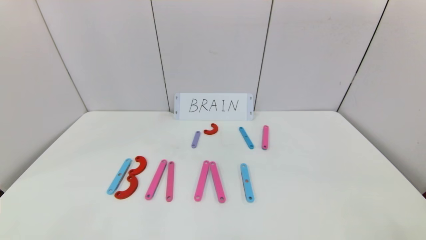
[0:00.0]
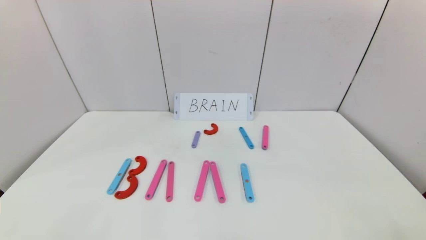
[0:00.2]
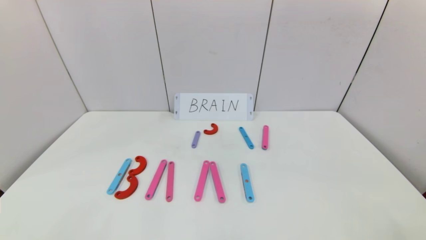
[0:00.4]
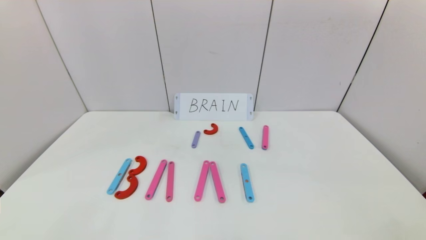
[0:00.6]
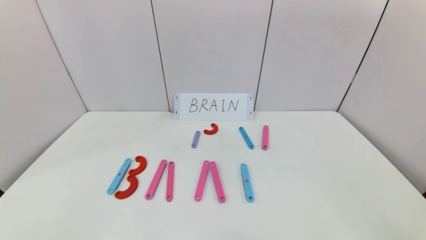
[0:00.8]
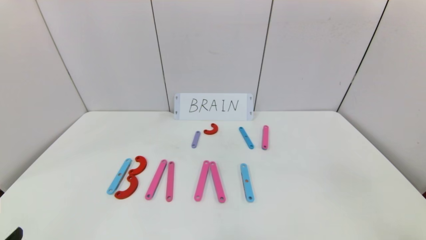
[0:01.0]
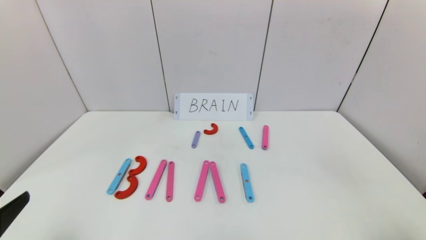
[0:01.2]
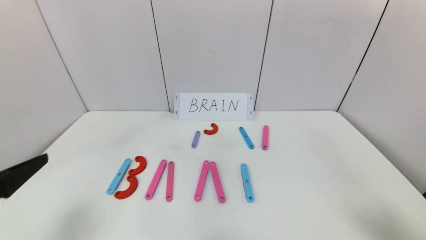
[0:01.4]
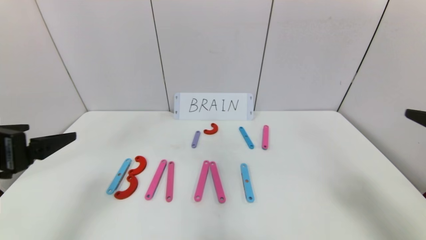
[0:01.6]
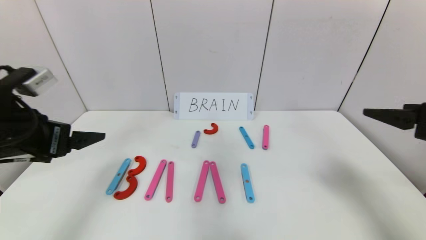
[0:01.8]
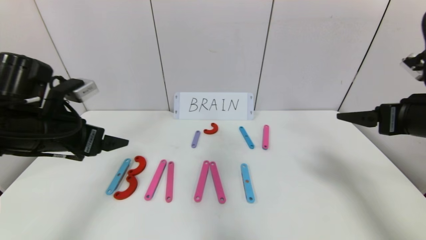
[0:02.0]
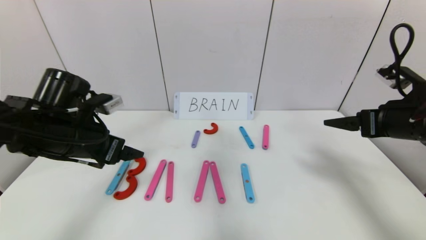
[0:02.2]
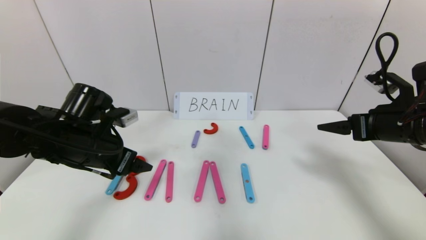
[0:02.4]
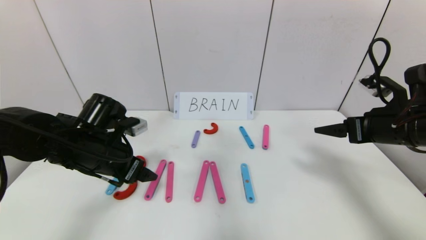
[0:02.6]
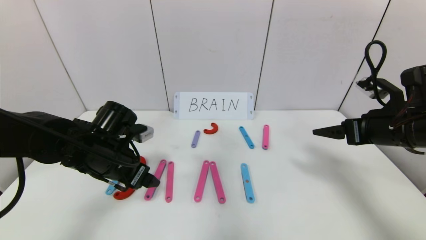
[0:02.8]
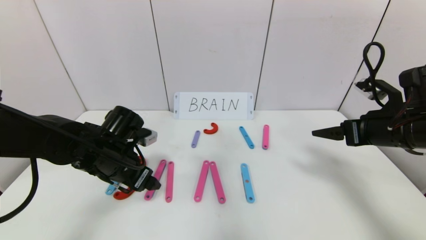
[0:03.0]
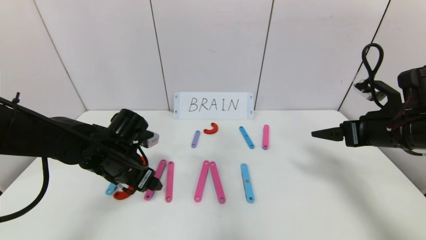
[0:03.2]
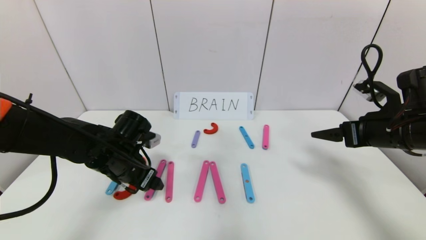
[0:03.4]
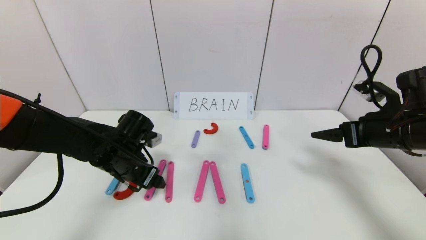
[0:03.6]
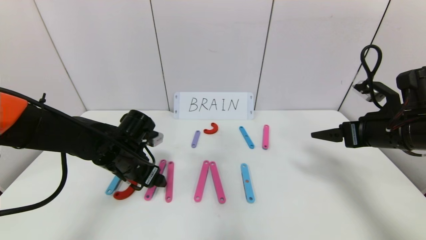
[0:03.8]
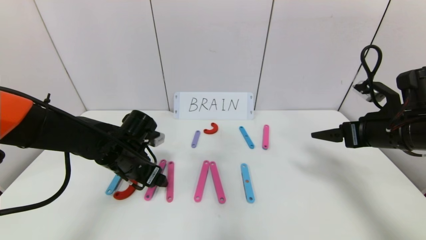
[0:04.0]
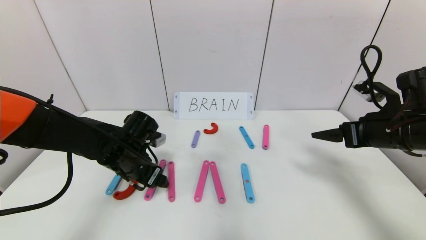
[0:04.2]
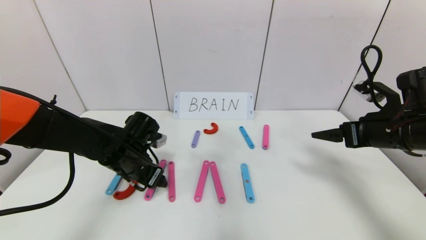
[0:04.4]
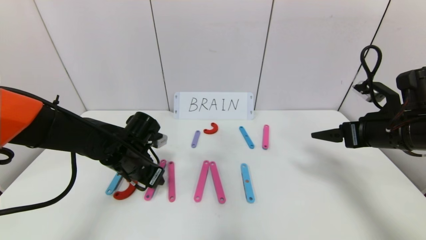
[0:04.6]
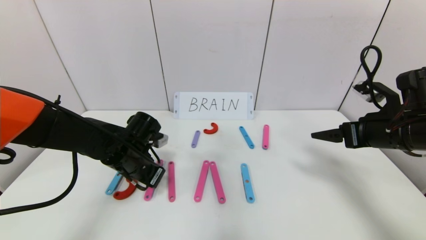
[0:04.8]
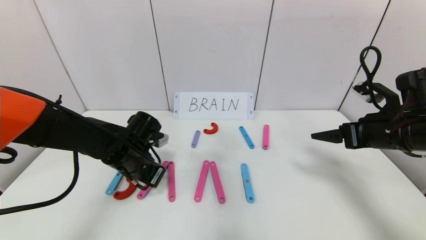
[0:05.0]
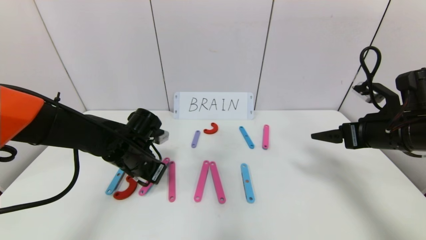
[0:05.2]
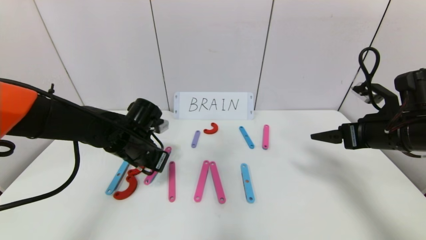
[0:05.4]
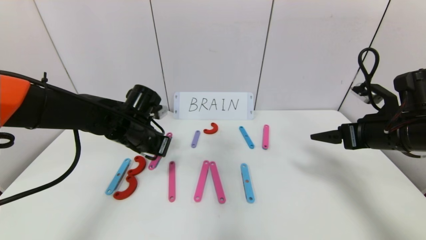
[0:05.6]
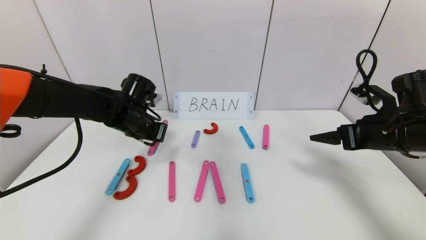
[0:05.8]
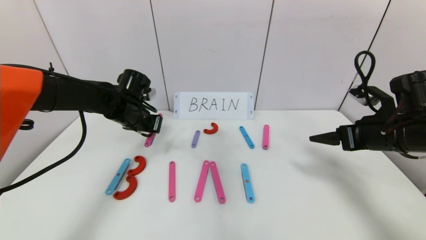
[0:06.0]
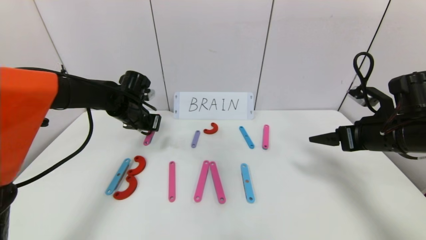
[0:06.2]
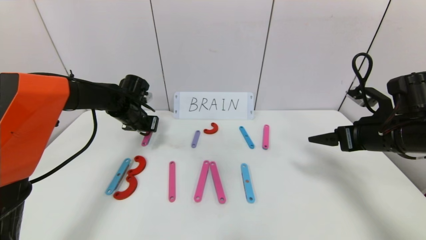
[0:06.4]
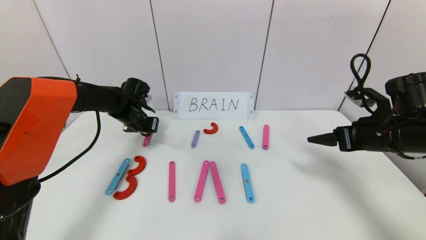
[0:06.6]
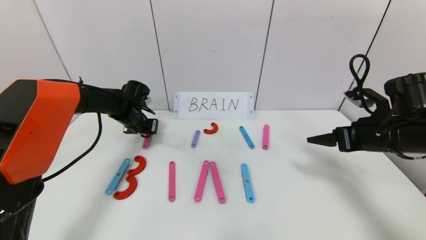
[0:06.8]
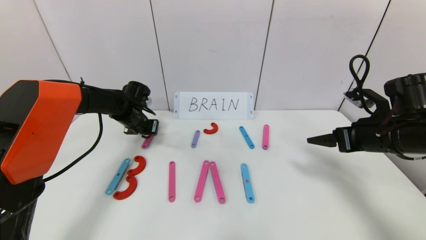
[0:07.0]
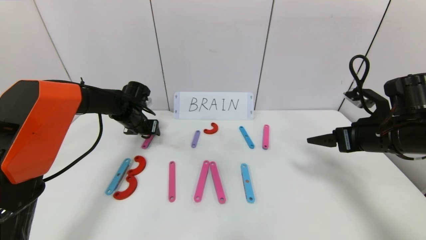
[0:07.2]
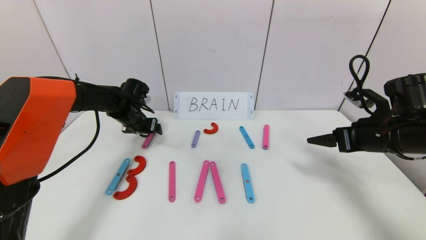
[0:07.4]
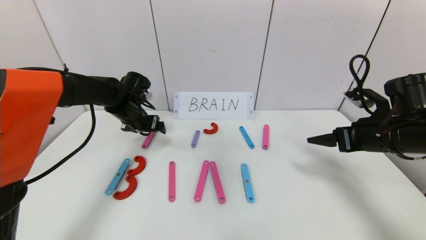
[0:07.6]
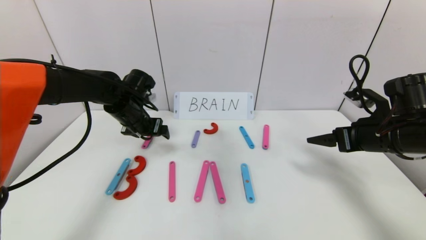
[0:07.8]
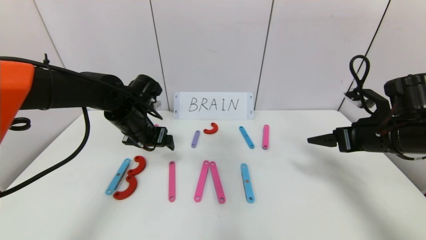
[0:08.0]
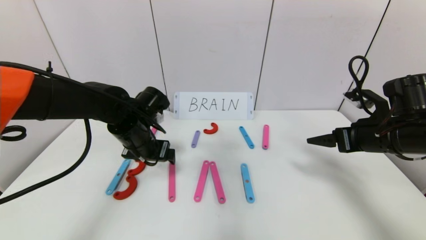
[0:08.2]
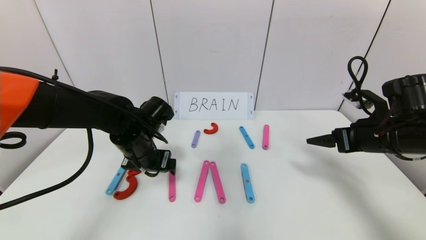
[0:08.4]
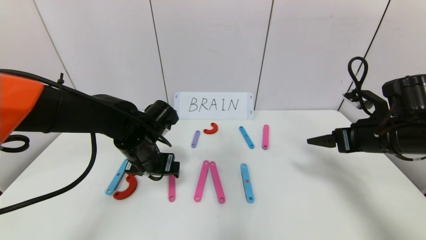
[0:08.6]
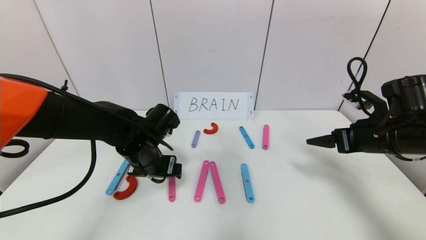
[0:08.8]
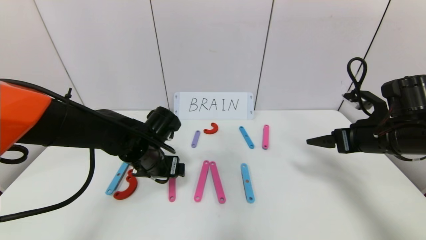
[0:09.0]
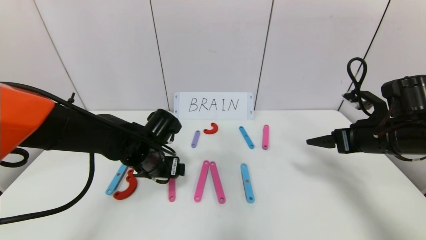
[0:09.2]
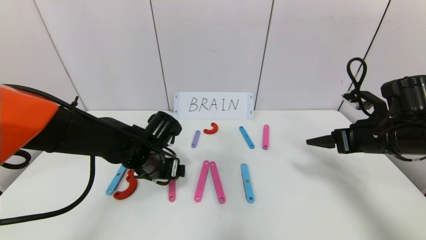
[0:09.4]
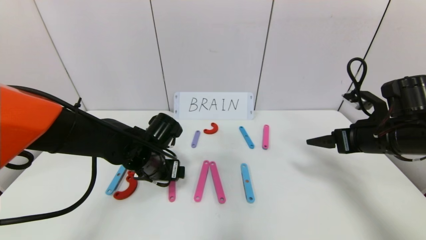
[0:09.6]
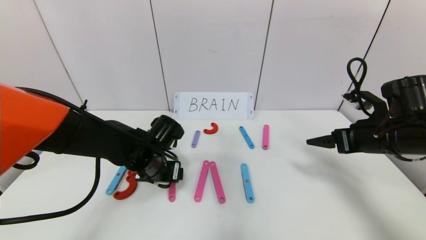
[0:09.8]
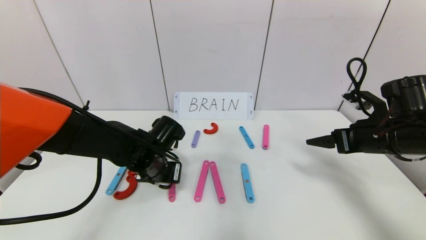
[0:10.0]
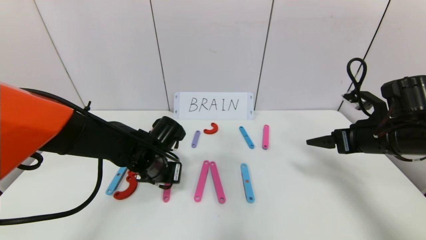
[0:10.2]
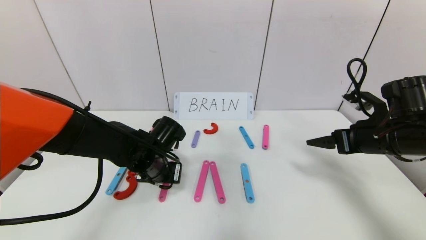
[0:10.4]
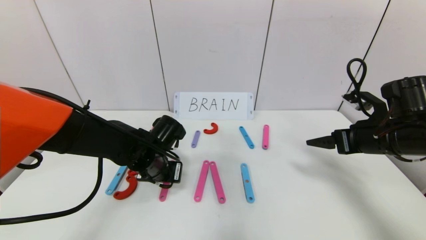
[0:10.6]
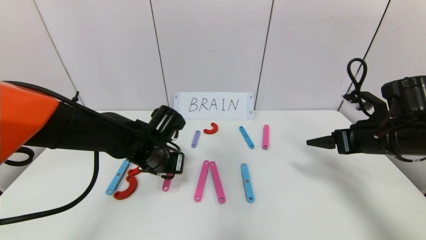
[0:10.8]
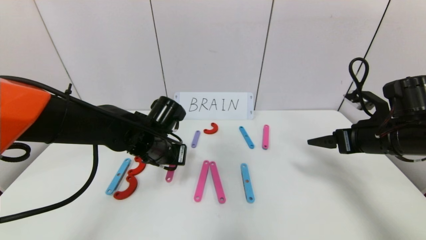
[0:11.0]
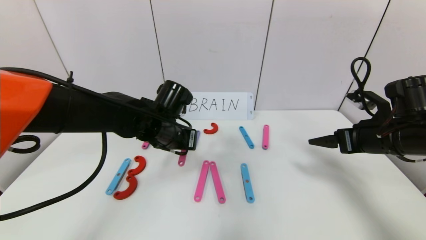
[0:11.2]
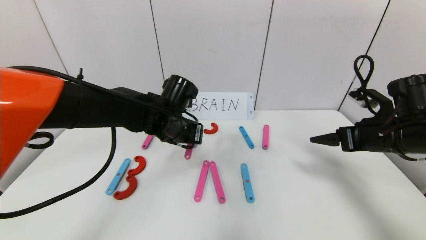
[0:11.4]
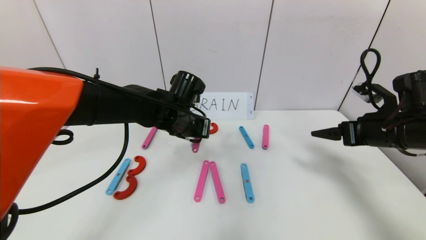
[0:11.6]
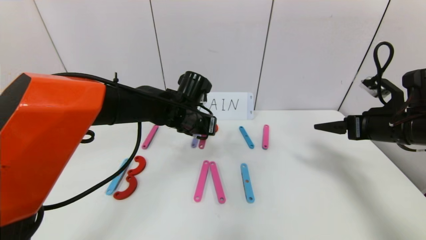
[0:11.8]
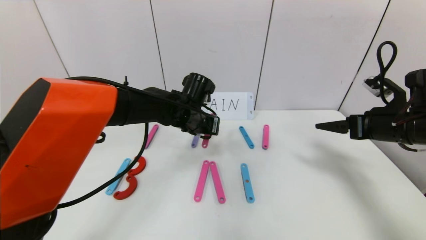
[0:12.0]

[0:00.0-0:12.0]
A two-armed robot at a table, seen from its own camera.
Task of the whole recording: rearrange the word baai as brain.
0:00.0 to 0:01.6: The grippers both shift upward and forward by approximately 25 cm.
0:01.6 to 0:03.0: The left gripper travels forward, downward and to the right by about 20 cm, while the right gripper shifts about 15 cm forward and downward.
0:03.0 to 0:04.4: There are only small adjustments of the grippers.
0:04.4 to 0:06.0: The left gripper heads forward and upward, covering about 10 cm, and closes up.
0:06.0 to 0:07.6: The left gripper opens its fingers.
0:07.6 to 0:09.0: The left gripper goes roughly 15 cm backward and to the right.
0:09.0 to 0:10.4: The left gripper closes up.
0:10.4 to 0:12.0: The left gripper travels forward, to the right and upward by roughly 15 cm.

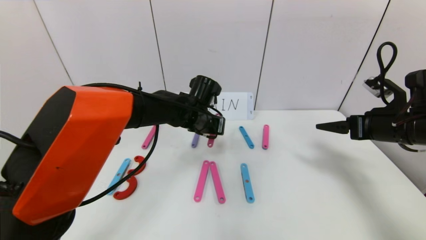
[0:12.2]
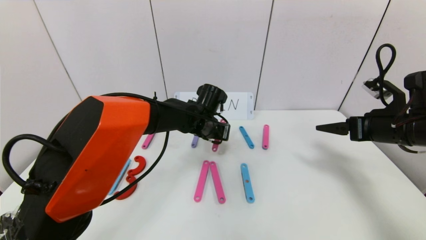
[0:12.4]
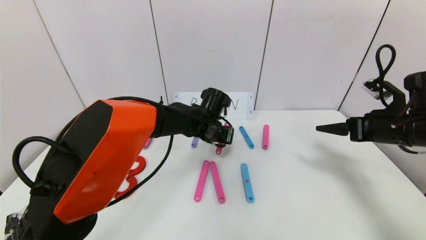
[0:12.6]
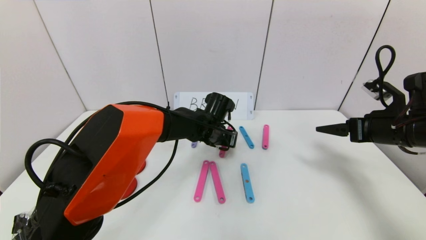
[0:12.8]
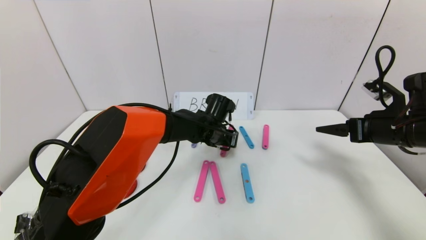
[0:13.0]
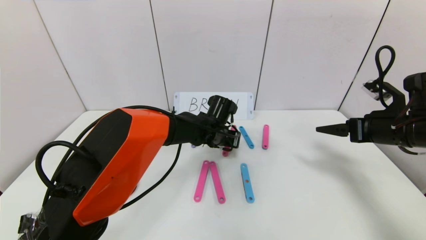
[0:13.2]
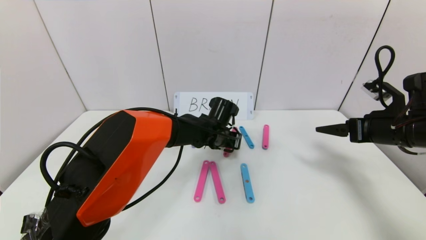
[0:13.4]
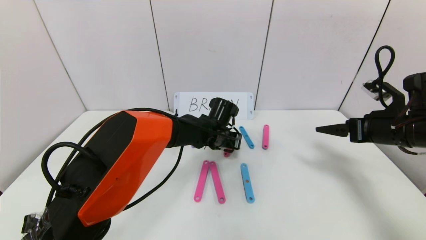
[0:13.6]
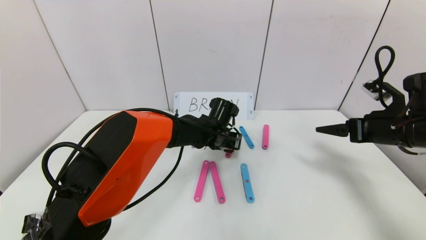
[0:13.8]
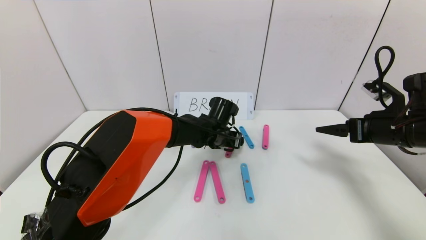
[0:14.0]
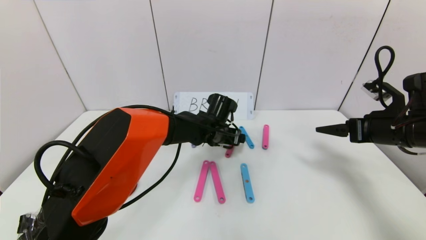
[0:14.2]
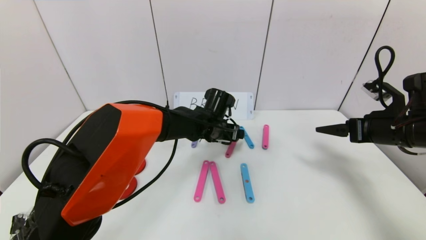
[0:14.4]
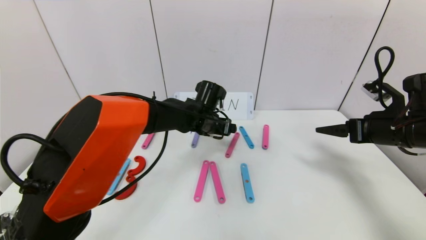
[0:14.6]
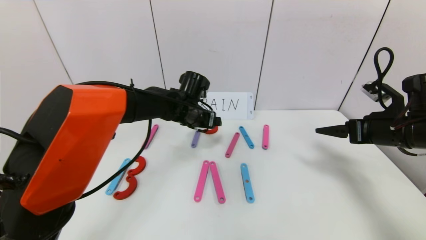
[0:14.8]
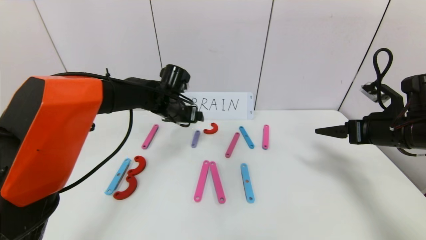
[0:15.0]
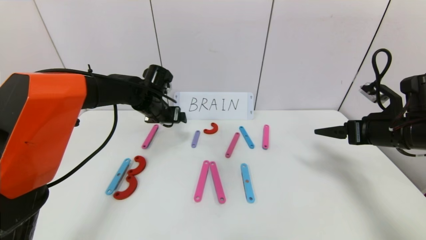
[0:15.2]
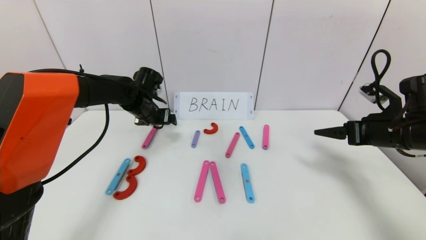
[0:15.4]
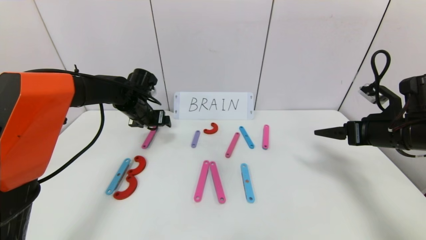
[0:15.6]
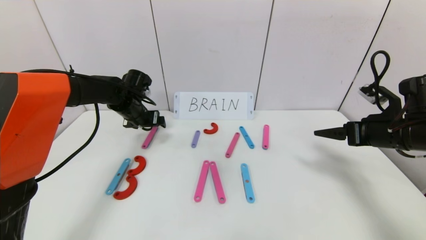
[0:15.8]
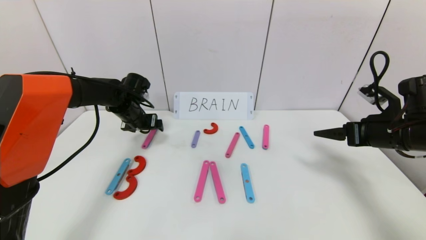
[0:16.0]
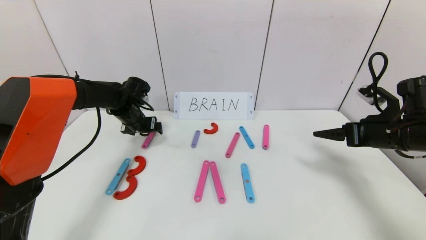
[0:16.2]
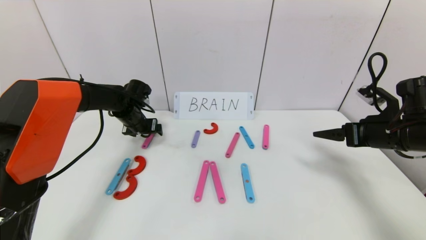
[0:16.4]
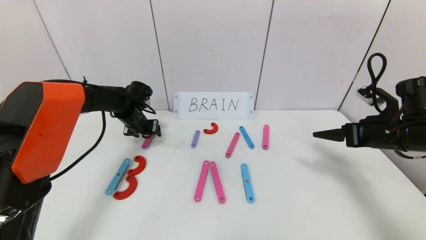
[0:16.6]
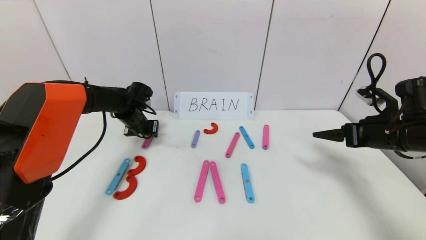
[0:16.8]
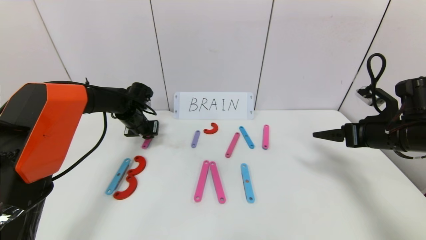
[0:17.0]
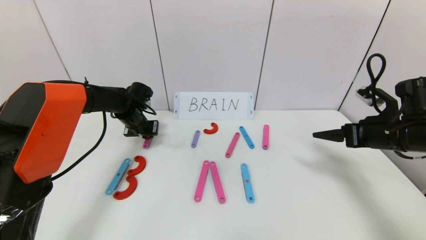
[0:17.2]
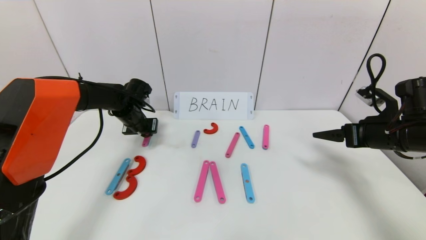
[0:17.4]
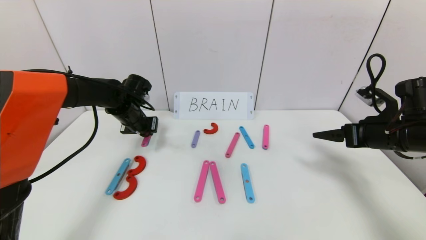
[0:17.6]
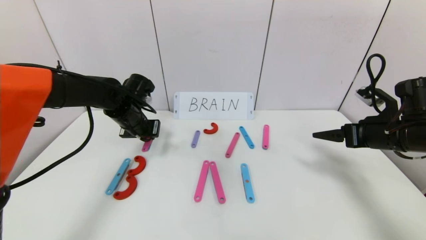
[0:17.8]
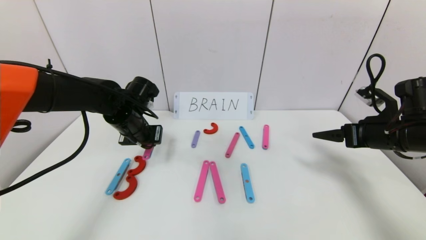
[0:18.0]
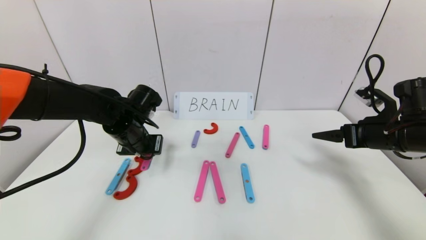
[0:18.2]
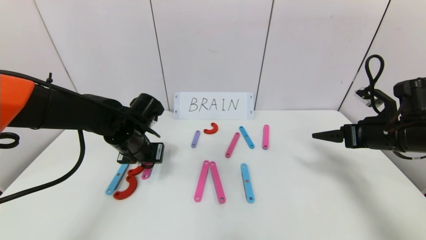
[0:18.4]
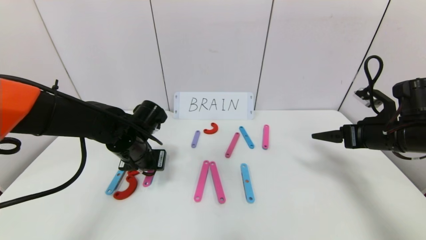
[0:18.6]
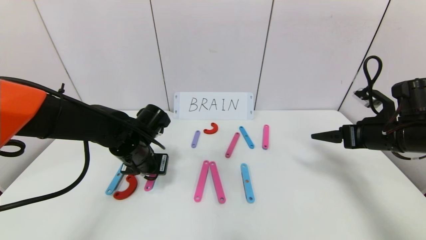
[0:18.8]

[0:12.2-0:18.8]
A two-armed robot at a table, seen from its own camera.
Task of the whole recording: rearrange the word baai as brain.
Step, 0:12.2 to 0:14.4: Disassemble the second character A.
0:12.2 to 0:13.8: The left gripper is displaced downward by approximately 5 cm, and opens.
0:13.8 to 0:15.4: The left gripper goes approximately 20 cm to the left, and opens.
0:15.4 to 0:17.2: The left gripper moves about 5 cm, and closes up.
0:17.2 to 0:18.8: The left gripper moves backward and to the right, approximately 15 cm.
